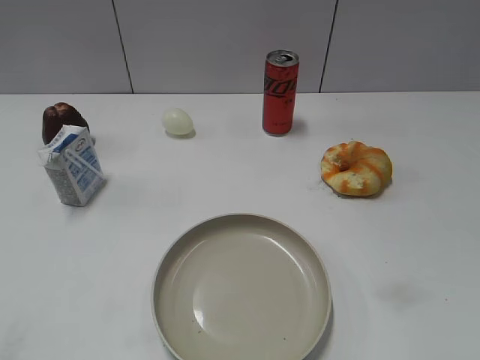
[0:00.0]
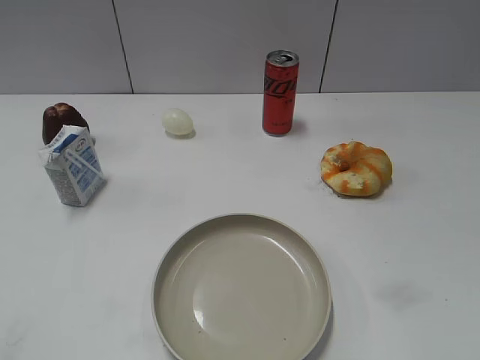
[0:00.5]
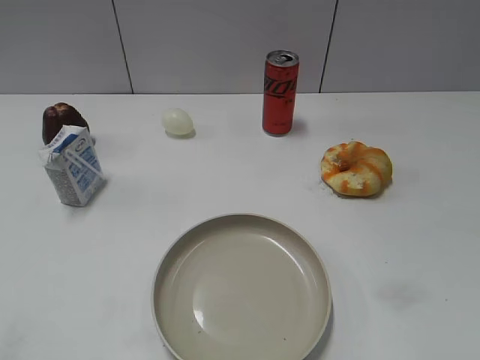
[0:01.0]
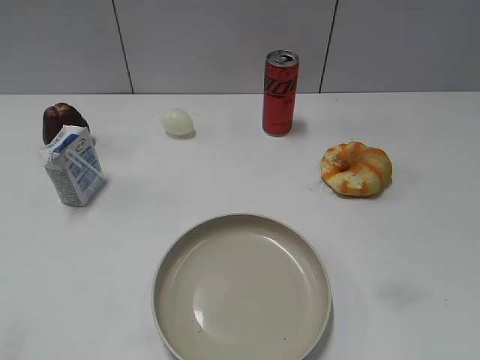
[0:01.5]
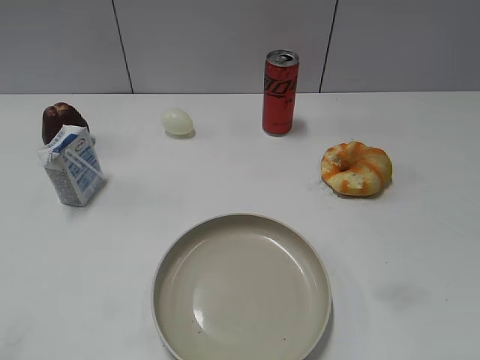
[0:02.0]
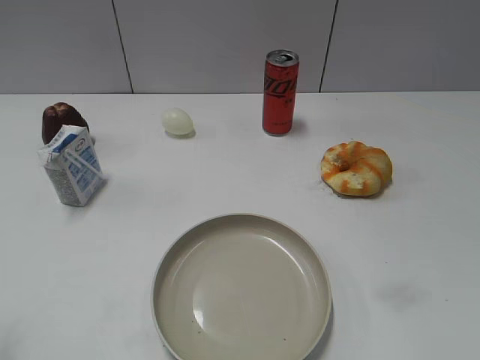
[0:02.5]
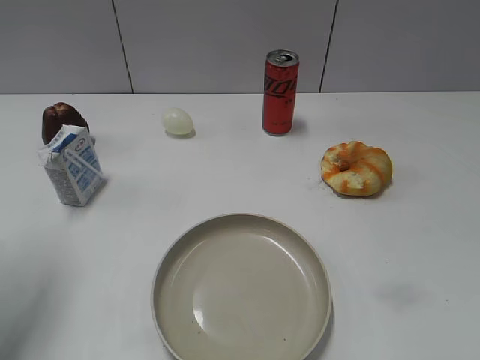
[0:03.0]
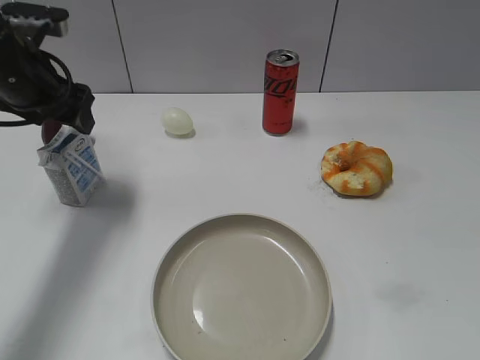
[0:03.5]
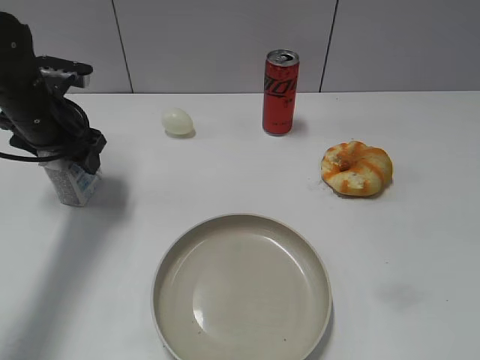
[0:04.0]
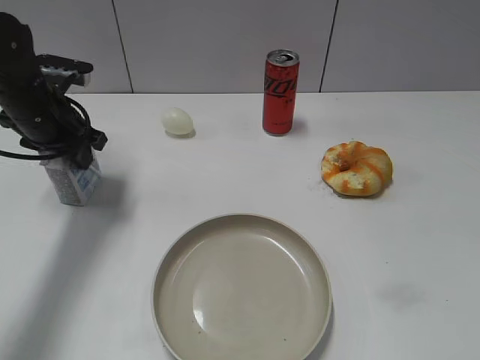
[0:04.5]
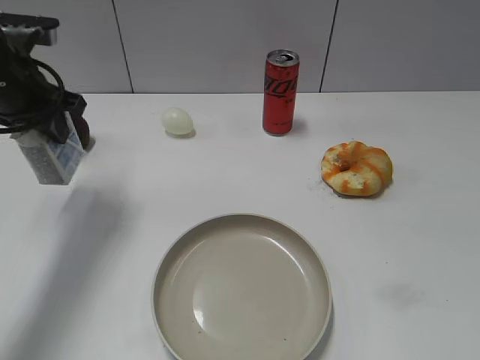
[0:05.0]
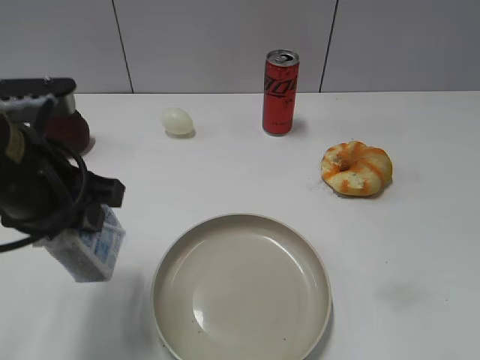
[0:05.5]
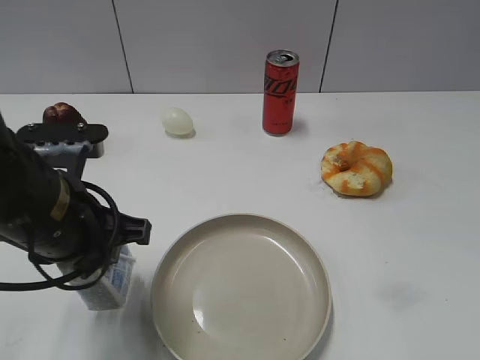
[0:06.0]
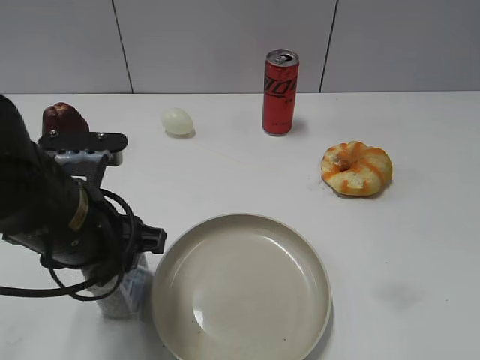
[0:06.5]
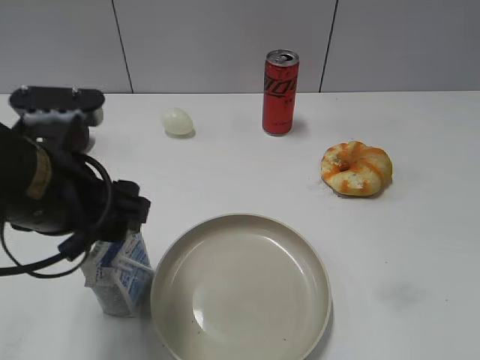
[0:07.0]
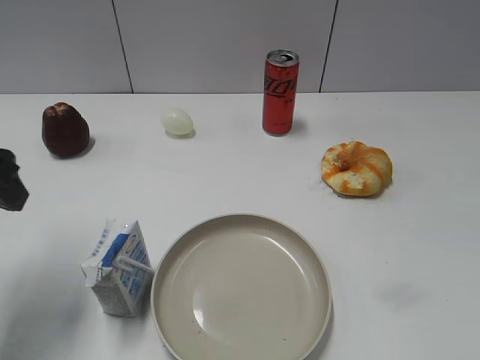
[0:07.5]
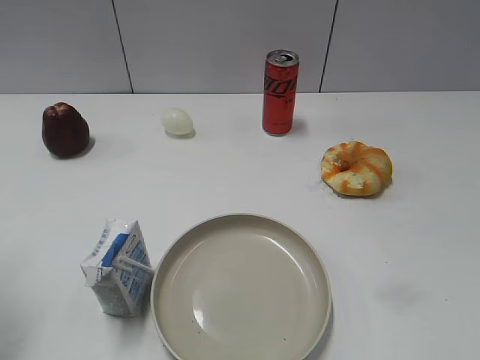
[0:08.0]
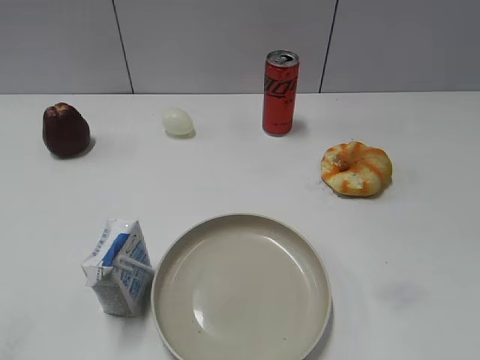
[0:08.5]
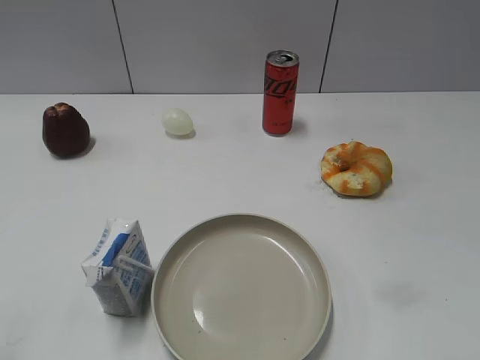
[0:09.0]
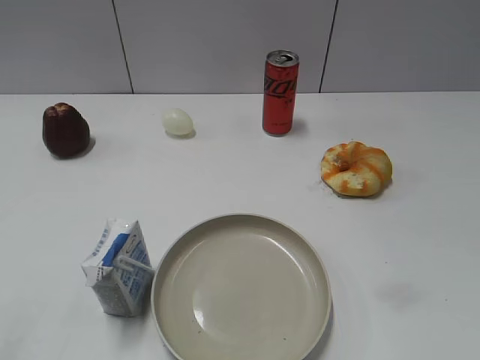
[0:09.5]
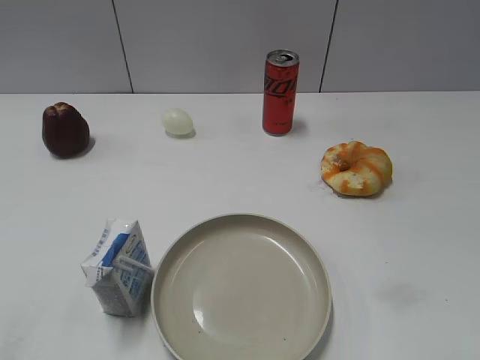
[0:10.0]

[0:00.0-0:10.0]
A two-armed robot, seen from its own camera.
Step, 0:02.0 to 0:04.5: Grasp the milk with left gripper.
Step, 0:05.0 to 0:06.5: Place the milk on the table with left gripper.
0:02.0 to 0:04.0: The left gripper shifts about 40 cm forward.
0:04.0 to 0:06.0: The left gripper shifts about 20 cm backward, and closes.
0:06.0 to 0:08.0: The left gripper is displaced to the left by roughly 15 cm, and opens.

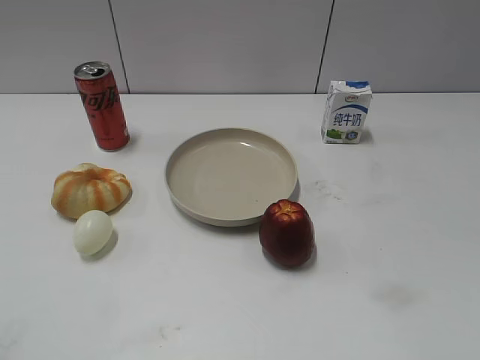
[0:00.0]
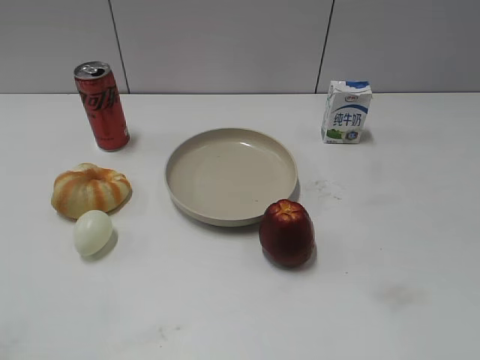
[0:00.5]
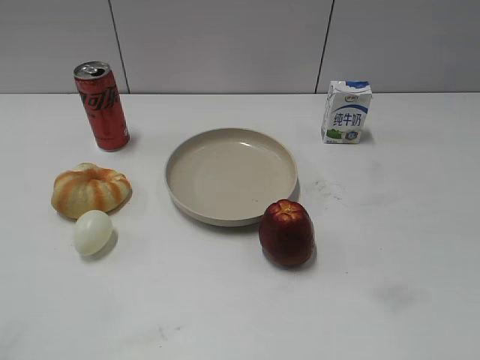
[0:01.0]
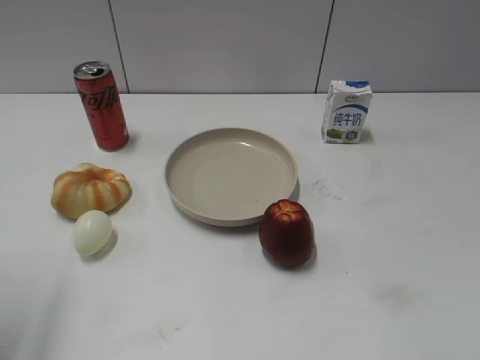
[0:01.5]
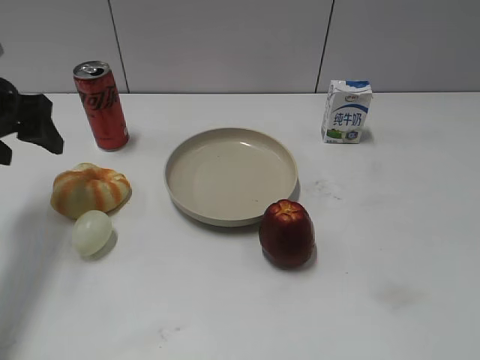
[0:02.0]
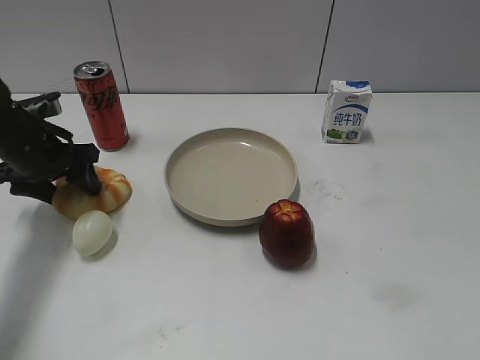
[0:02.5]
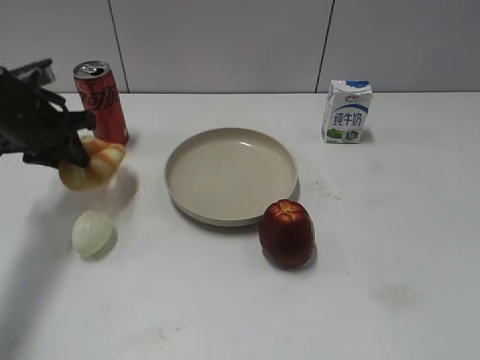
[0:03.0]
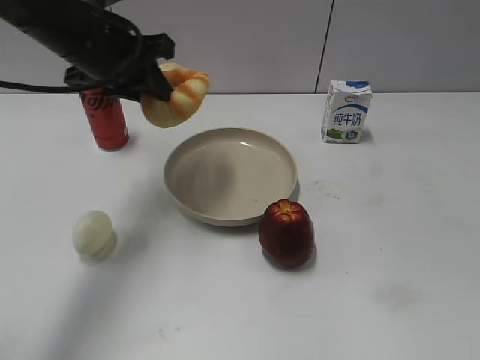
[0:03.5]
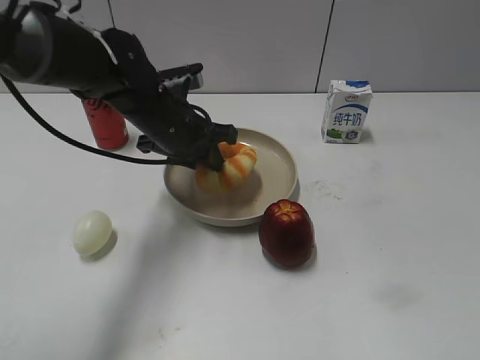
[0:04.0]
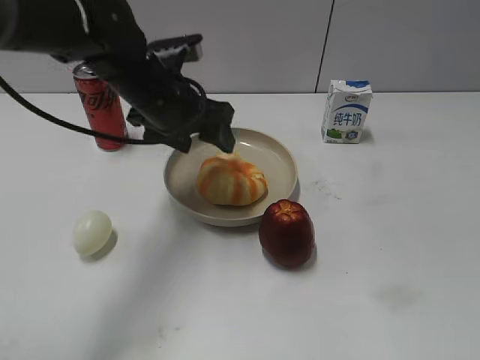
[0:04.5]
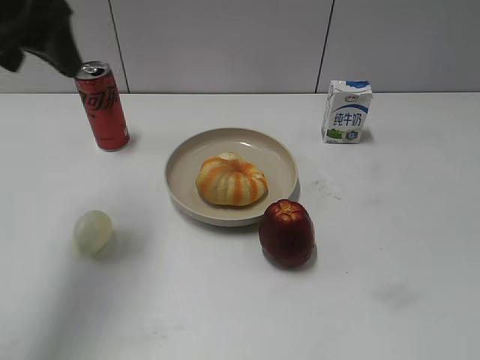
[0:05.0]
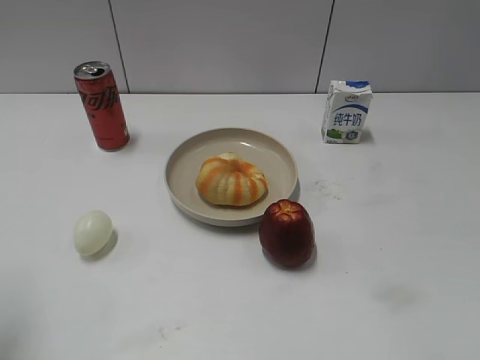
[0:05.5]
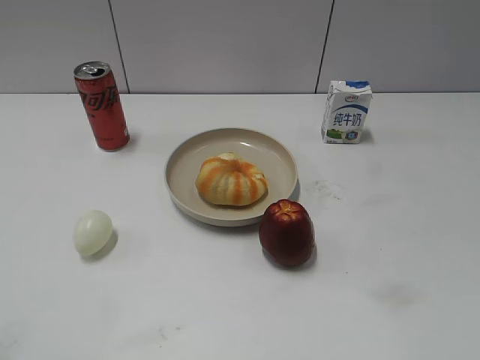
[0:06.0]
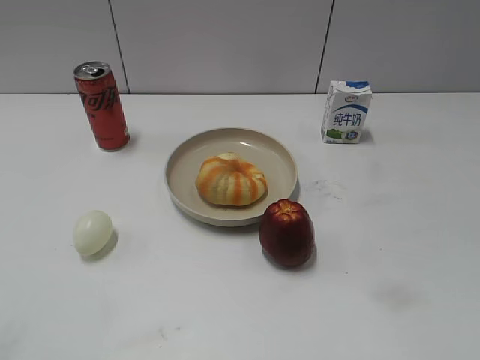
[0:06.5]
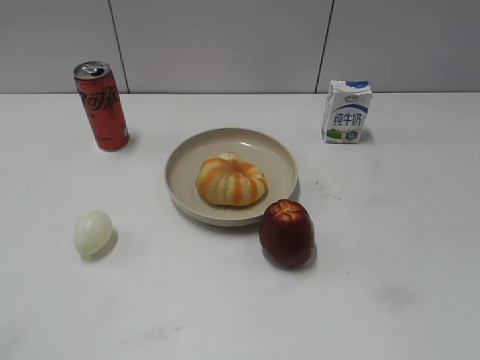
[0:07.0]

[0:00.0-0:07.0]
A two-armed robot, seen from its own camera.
Step, 0:01.0 to 0:02.5: Grasp the round bread with left gripper.
Step, 0:03.0 to 0:04.5: Place the round bread on the plate with left gripper.
0:02.0 to 0:03.5: The left gripper goes approximately 15 cm to the right, and closes up.
0:03.5 to 0:05.0: The left gripper goes some 15 cm upward, to the left and backward, and opens.
0:05.0 to 0:07.0: The left gripper is displaced backward by about 30 cm.
